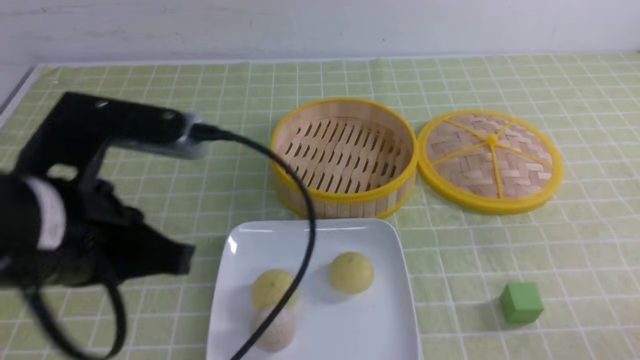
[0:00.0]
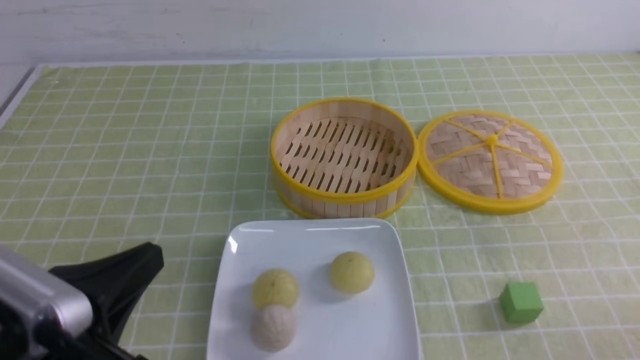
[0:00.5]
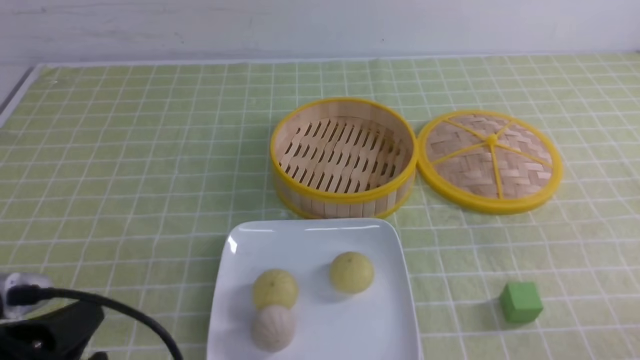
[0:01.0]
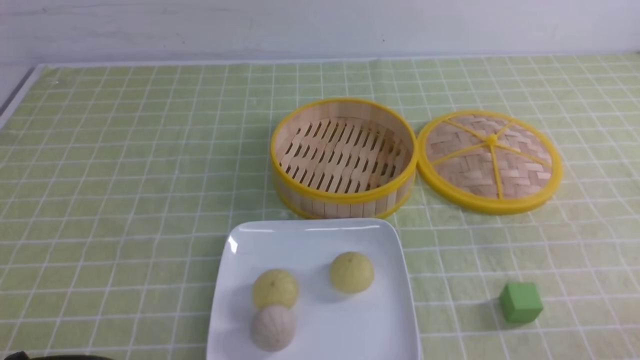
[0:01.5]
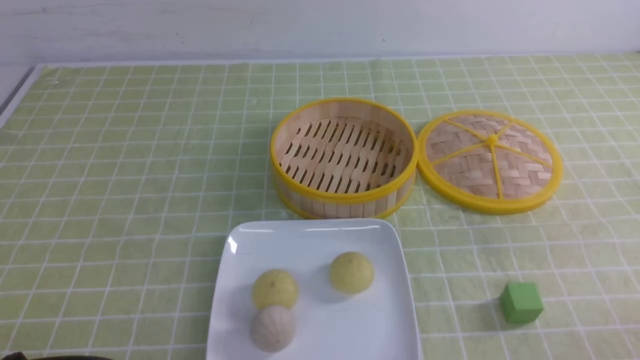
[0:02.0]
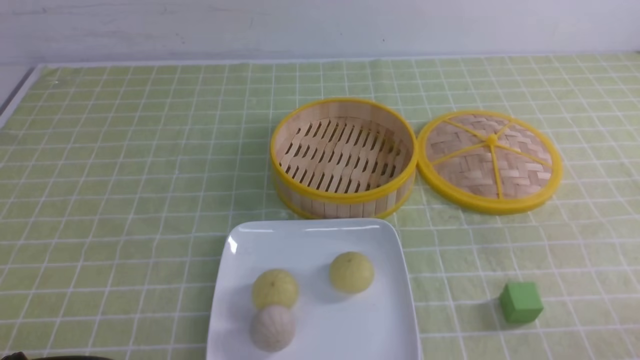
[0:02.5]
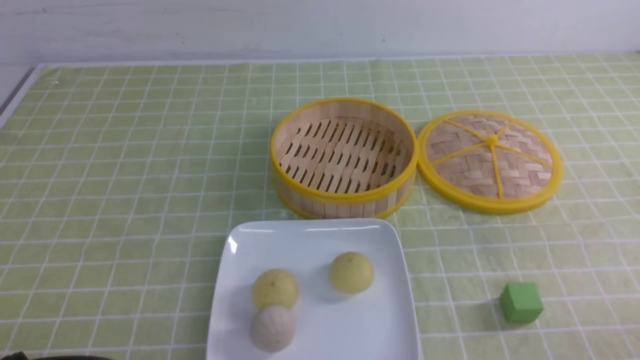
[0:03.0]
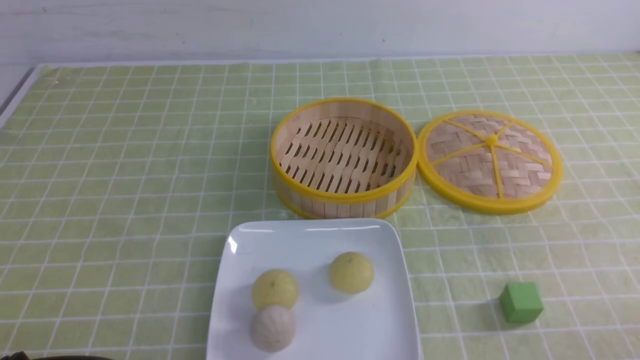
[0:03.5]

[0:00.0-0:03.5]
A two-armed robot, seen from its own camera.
0:00.0 to 0:02.0: The left gripper shifts about 20 cm downward, backward and to the left.
0:02.0 to 0:03.5: Both grippers stay put.
